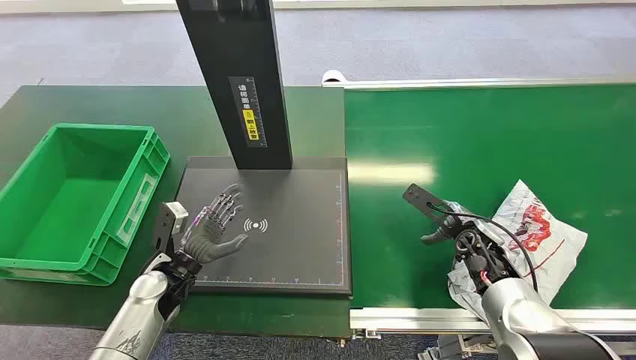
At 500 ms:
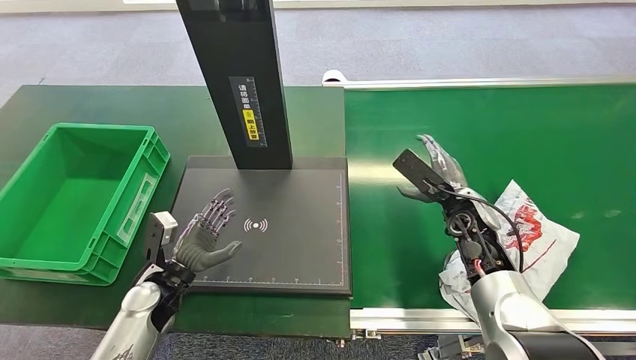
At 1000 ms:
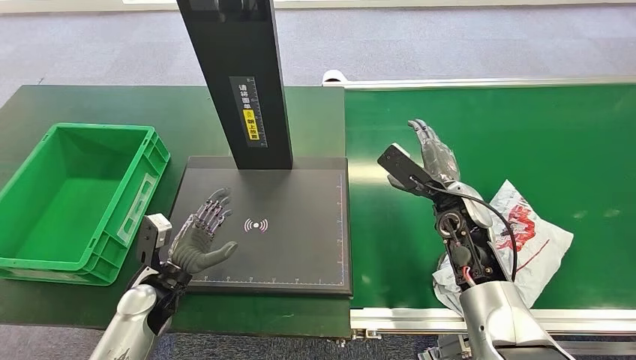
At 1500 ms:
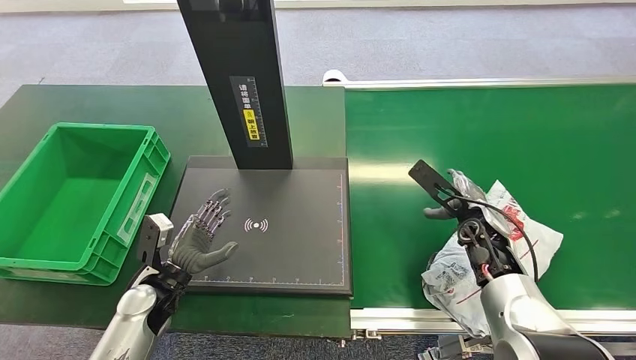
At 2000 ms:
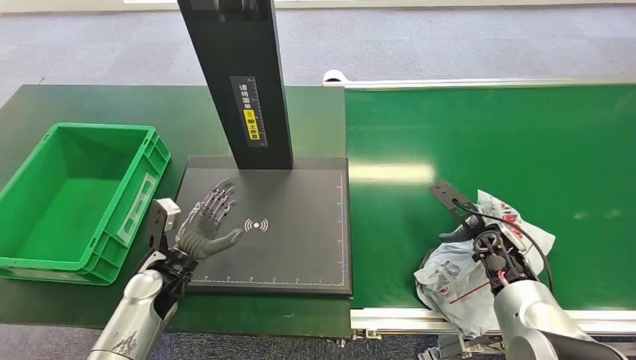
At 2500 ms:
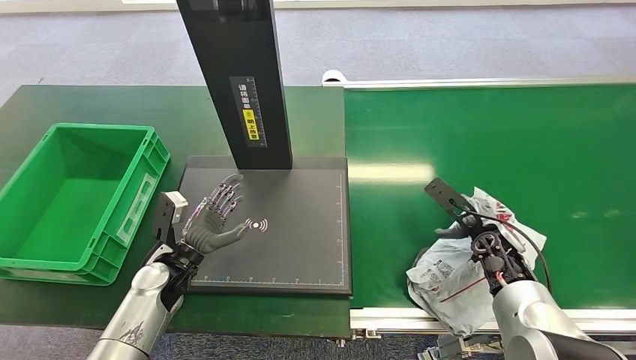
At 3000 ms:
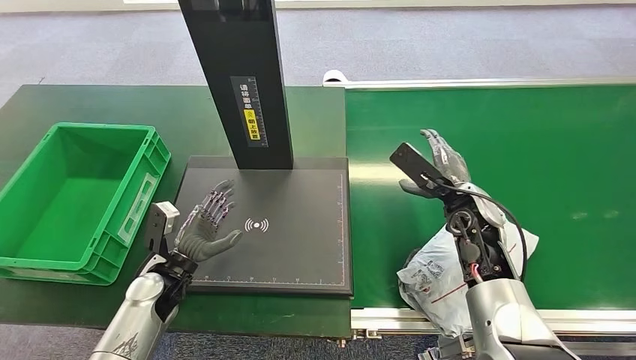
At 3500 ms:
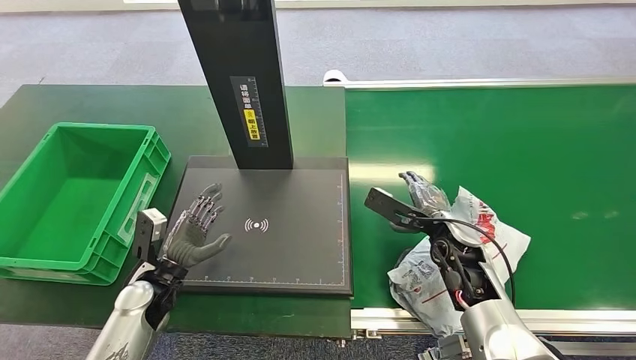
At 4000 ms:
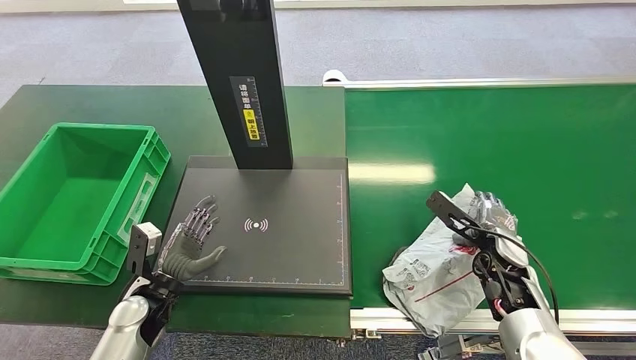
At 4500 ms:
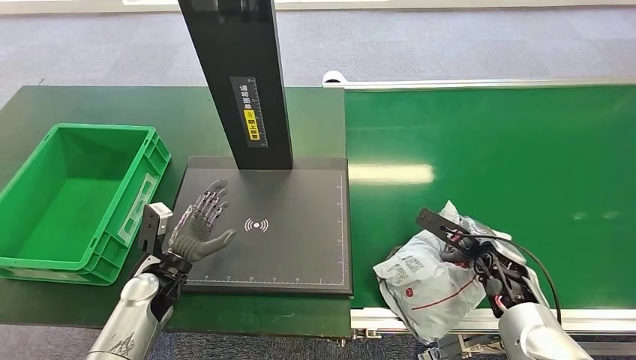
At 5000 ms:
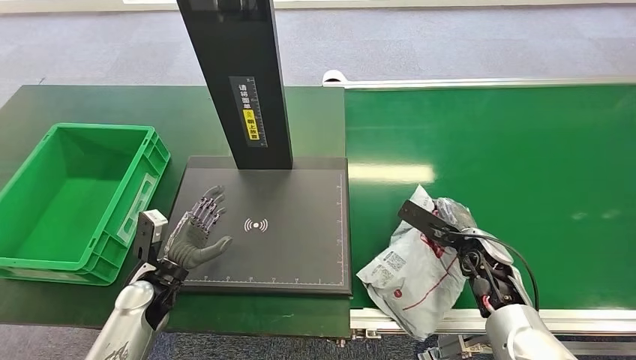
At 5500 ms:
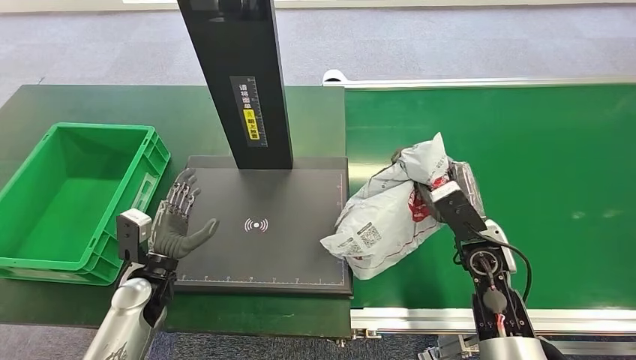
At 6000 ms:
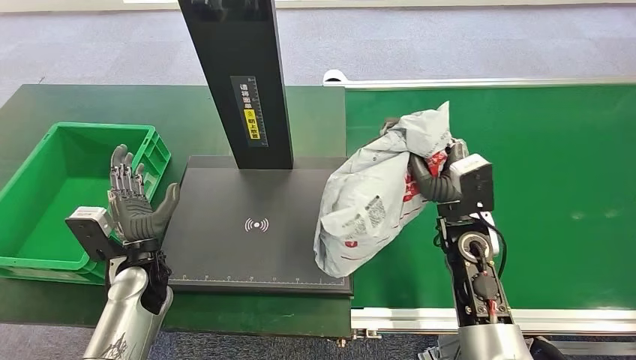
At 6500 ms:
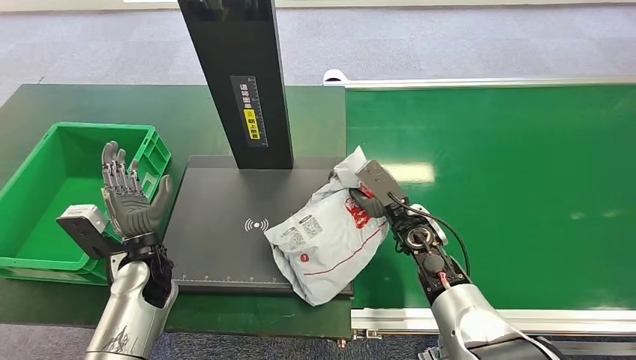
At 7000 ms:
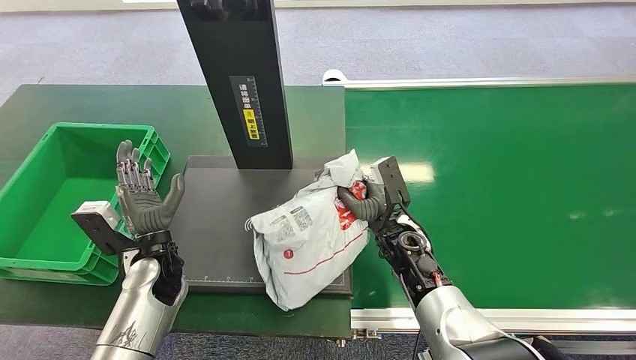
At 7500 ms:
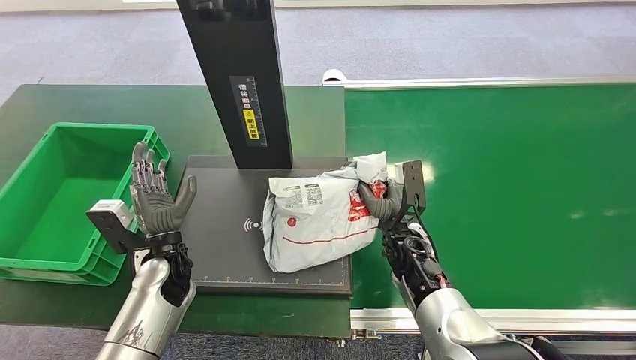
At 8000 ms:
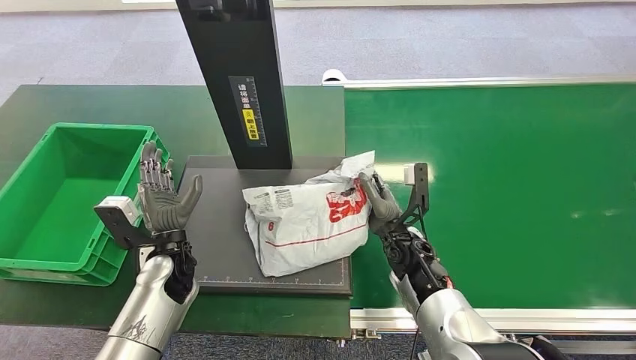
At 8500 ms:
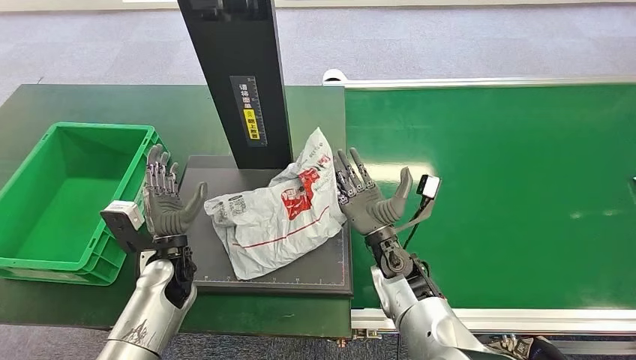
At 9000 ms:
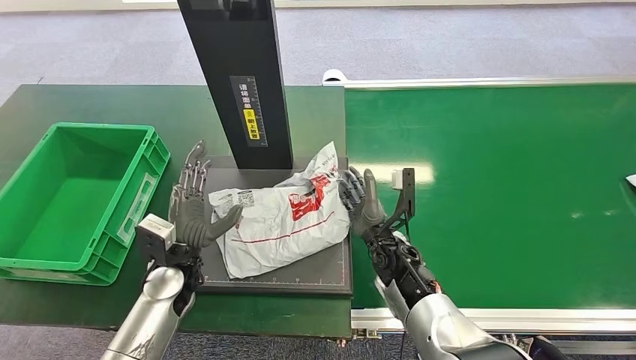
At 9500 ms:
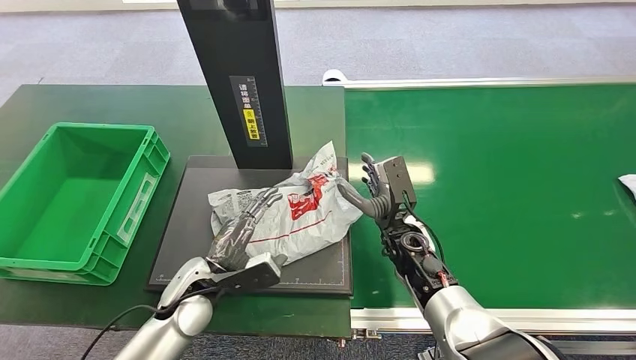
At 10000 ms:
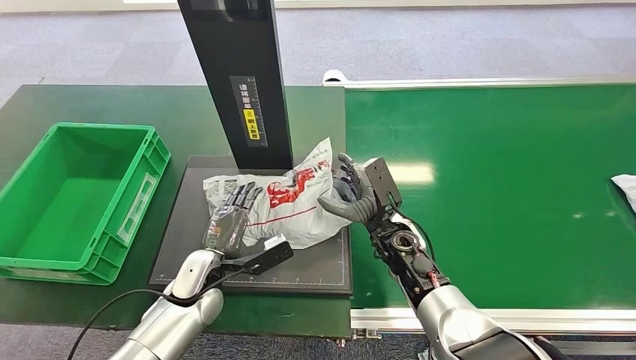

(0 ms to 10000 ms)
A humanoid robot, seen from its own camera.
Step, 0 ms - 5500 ms: Pick up the package from the conveyor belt.
Step, 6500 ms - 9000 ms: Place the package onto the inbound machine.
2000 ms - 4000 ms: The left hand ends up about 5 cm from where it was. The right hand moves about 10 cm to the left and comes back.
8000 ms - 10000 ms: The left hand shifts by about 5 cm.

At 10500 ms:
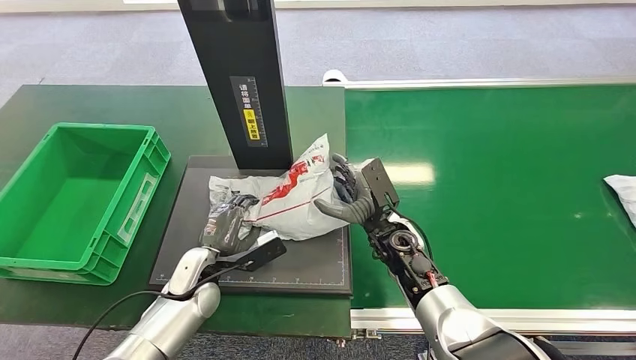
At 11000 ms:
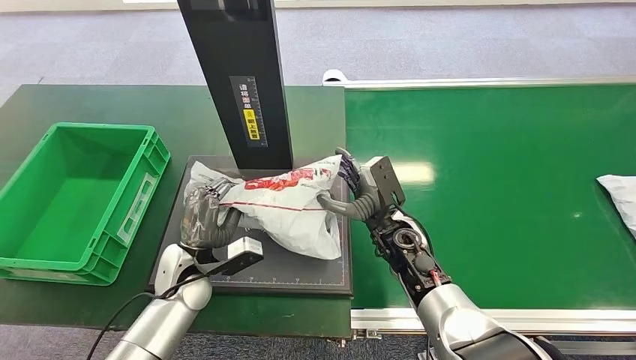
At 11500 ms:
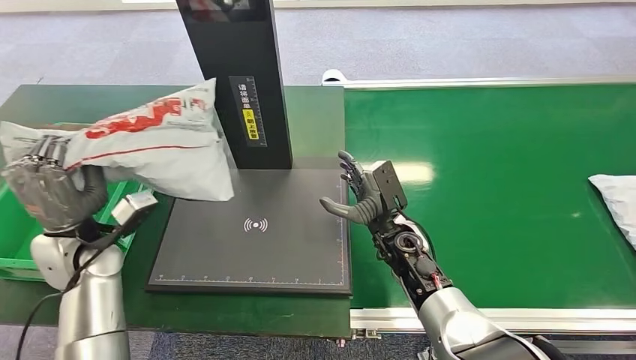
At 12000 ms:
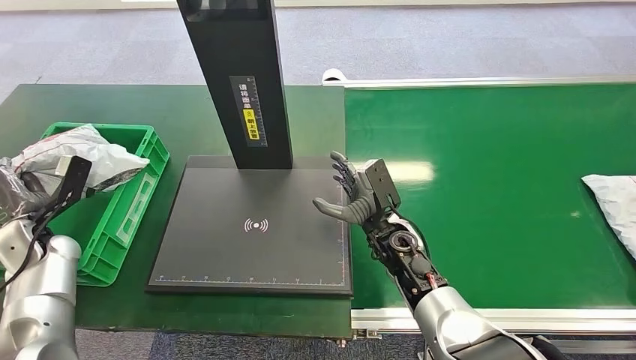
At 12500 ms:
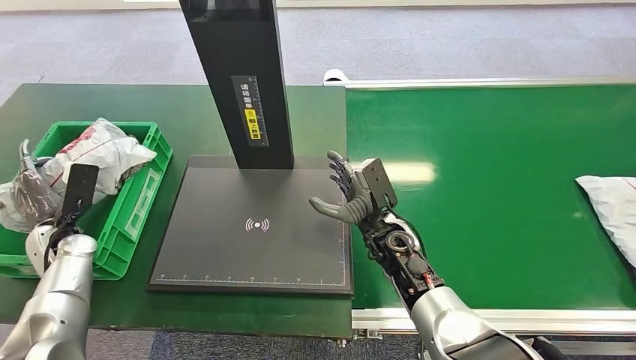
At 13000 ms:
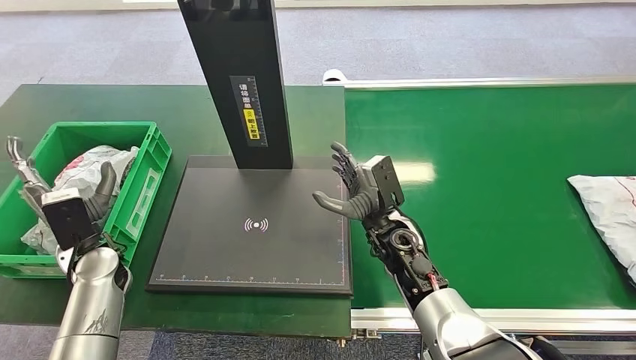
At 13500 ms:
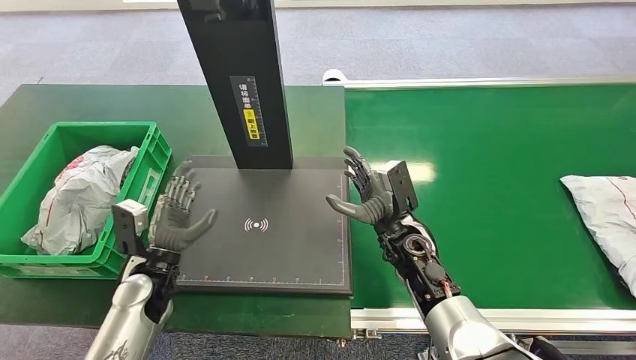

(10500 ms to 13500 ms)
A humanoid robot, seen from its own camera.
Step, 10500 ms - 12000 ms: Pick up the package from the inbound machine.
Step, 12500 ms - 13500 ms: Place the package into the parcel locker.

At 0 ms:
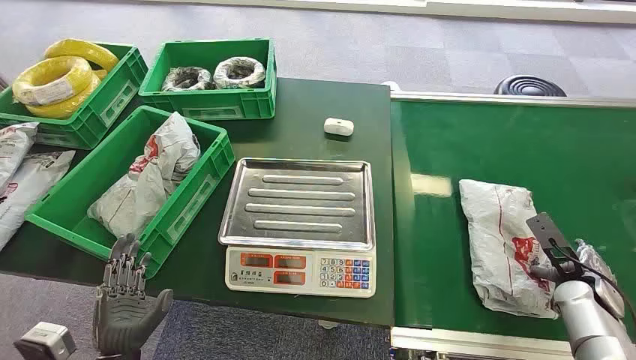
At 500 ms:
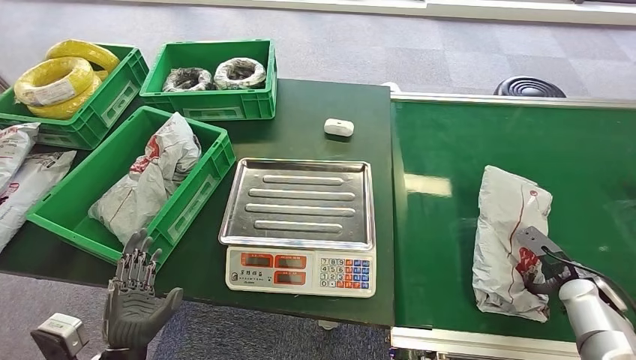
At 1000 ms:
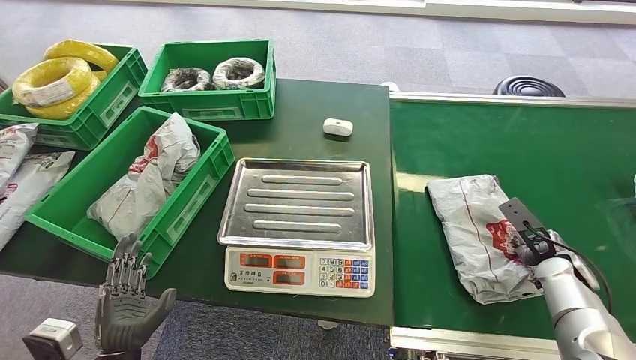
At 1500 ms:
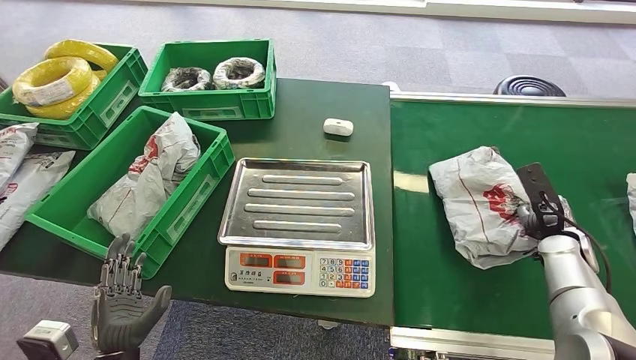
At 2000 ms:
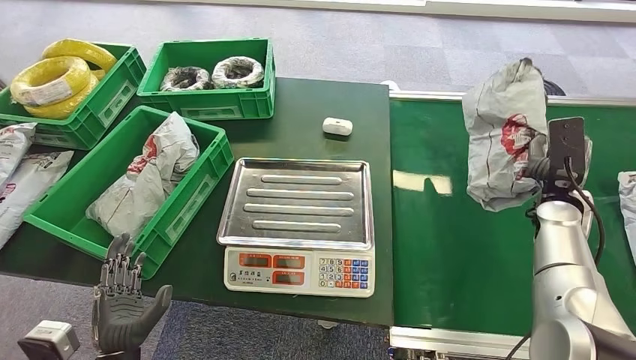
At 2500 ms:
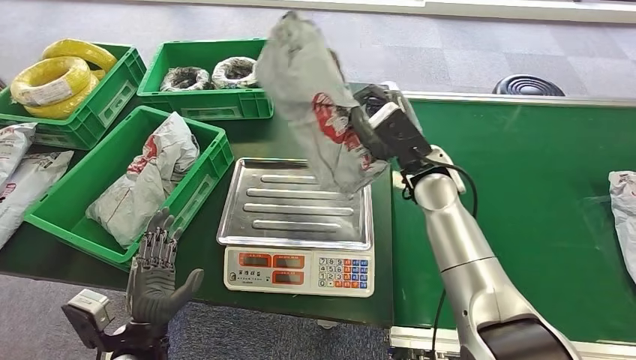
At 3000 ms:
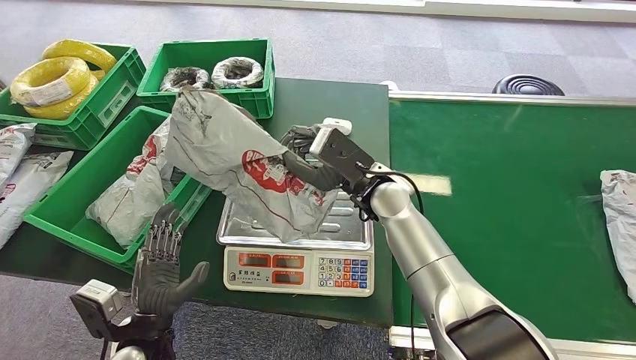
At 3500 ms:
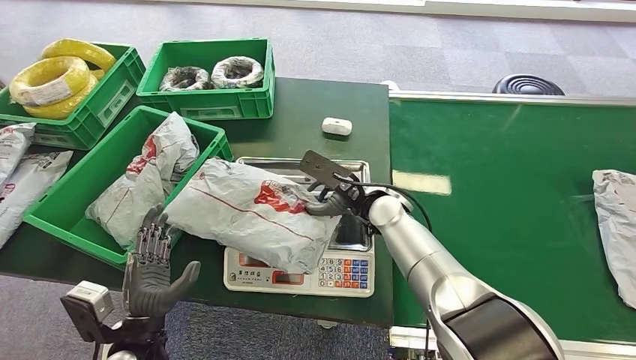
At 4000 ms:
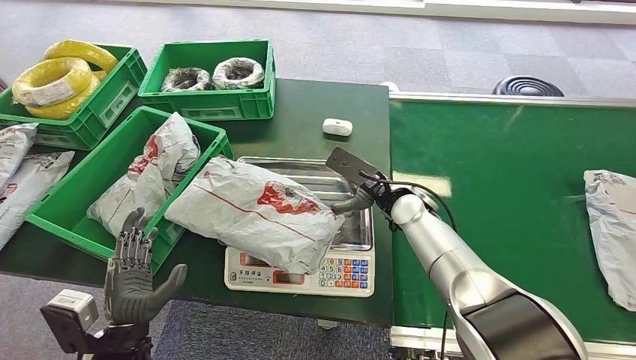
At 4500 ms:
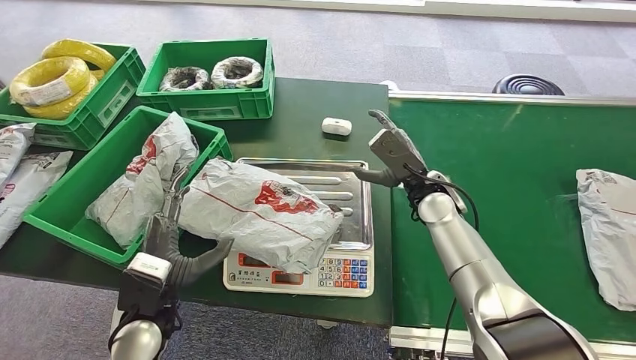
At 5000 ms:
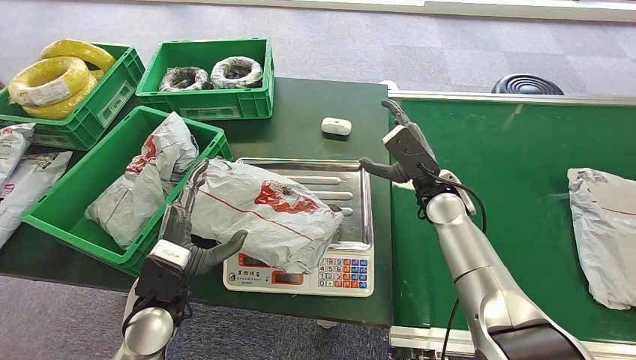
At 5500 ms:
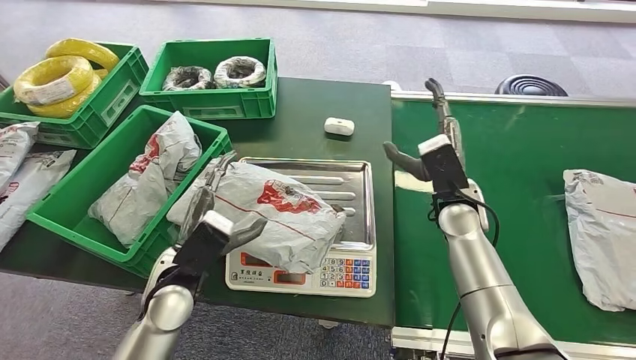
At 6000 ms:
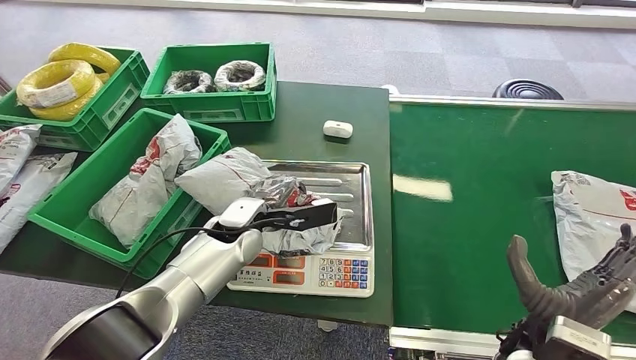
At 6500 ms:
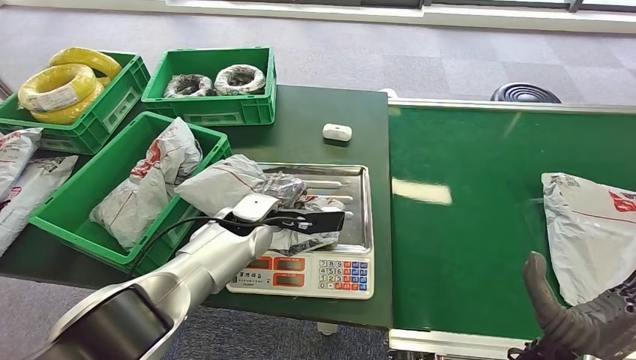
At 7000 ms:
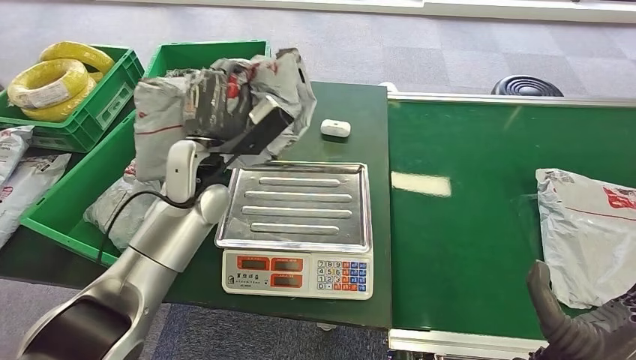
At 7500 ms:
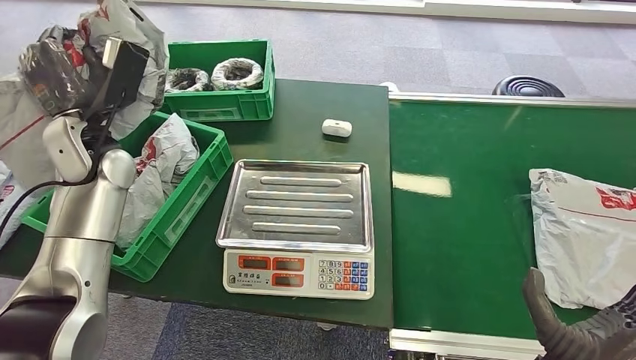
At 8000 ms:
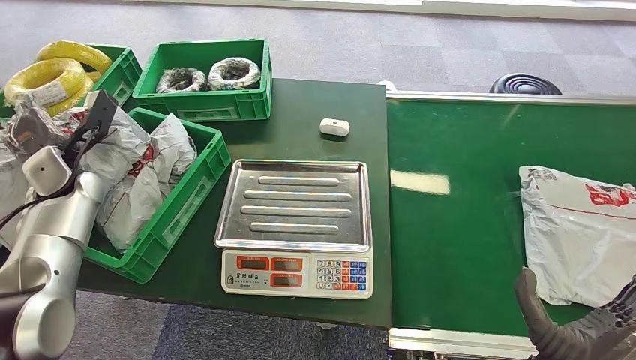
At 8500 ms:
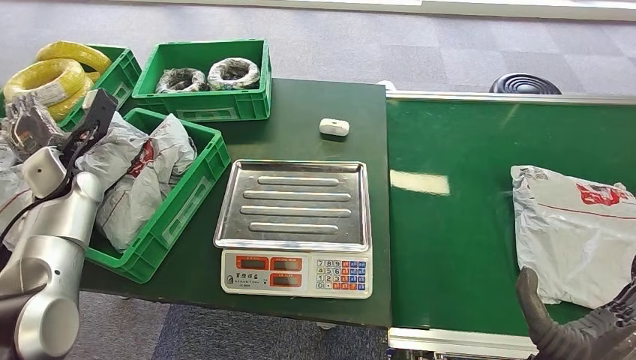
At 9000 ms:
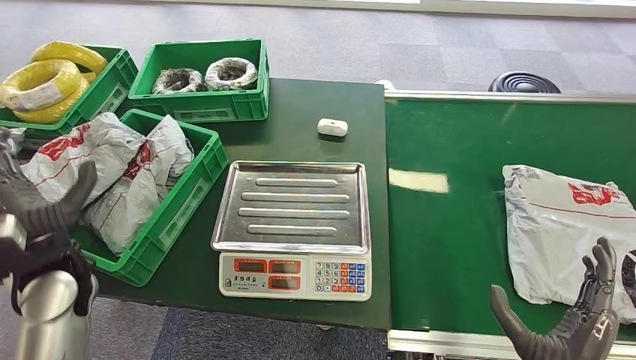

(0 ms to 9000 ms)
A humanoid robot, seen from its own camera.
Step, 0 ms - 2000 ms: Pick up the package from the conveyor belt.
Step, 2500 ms - 4000 ms: Place the package onto the inbound machine.
Step, 4500 ms - 7000 ms: Pick up the package from the inbound machine.
Step, 8000 ms - 9000 ms: Place the package into the parcel locker.
